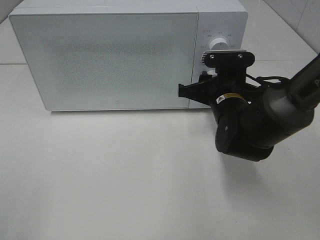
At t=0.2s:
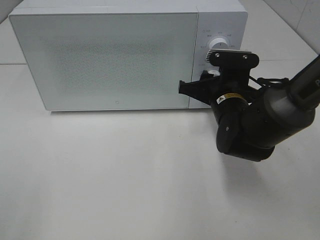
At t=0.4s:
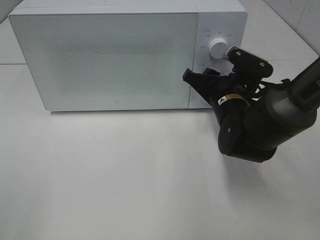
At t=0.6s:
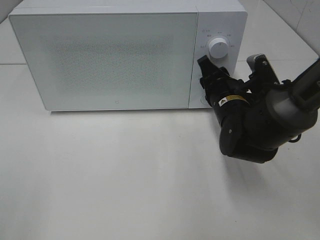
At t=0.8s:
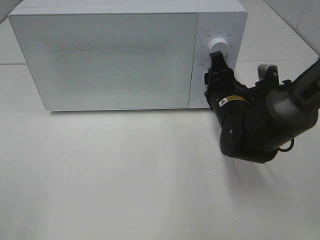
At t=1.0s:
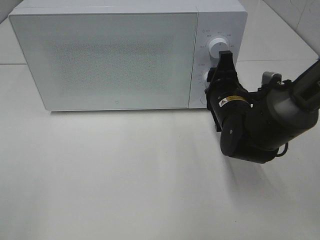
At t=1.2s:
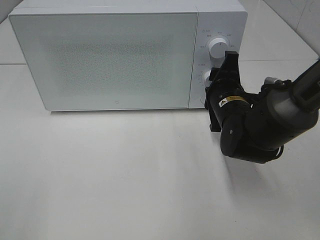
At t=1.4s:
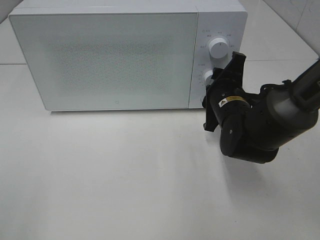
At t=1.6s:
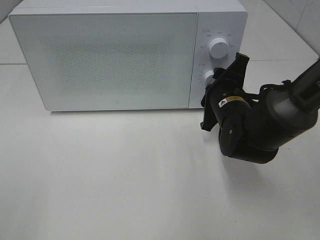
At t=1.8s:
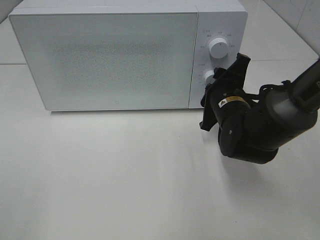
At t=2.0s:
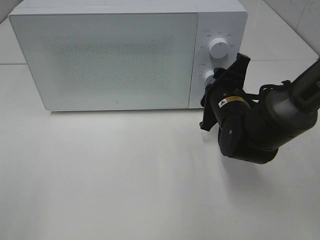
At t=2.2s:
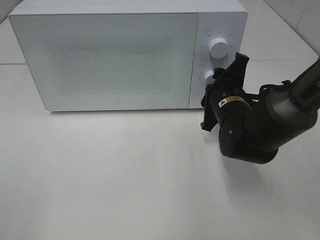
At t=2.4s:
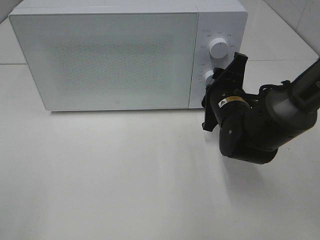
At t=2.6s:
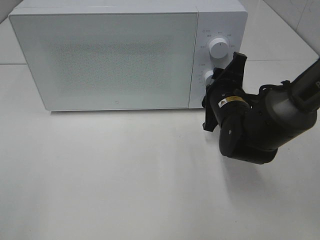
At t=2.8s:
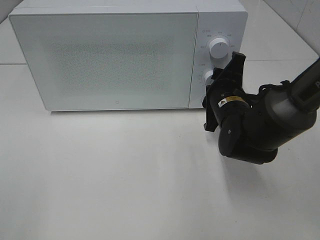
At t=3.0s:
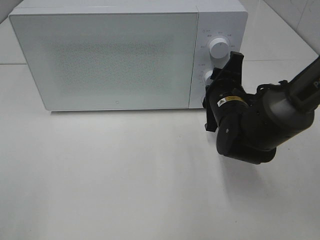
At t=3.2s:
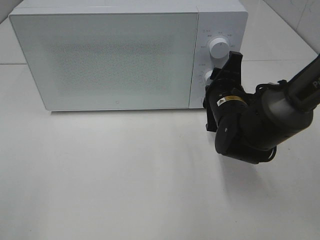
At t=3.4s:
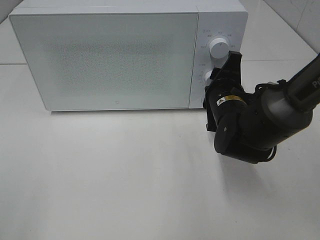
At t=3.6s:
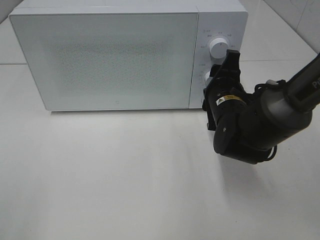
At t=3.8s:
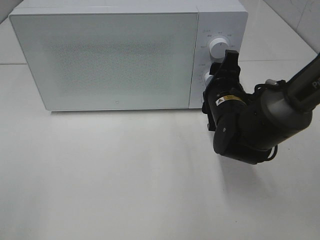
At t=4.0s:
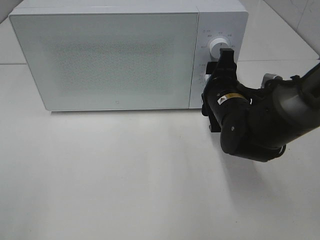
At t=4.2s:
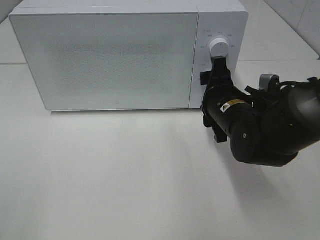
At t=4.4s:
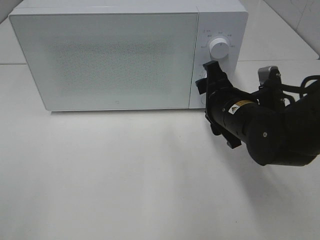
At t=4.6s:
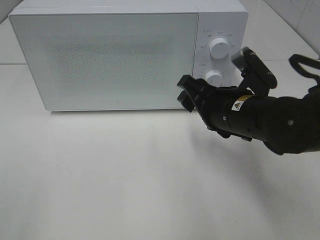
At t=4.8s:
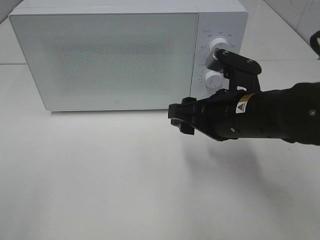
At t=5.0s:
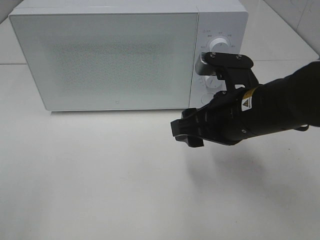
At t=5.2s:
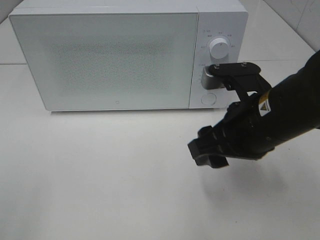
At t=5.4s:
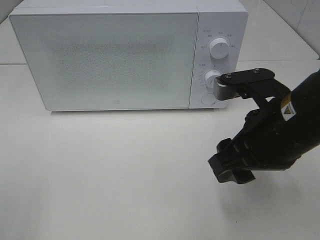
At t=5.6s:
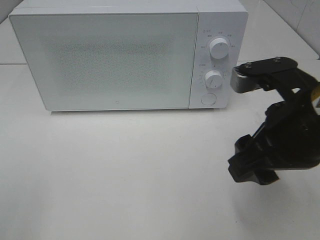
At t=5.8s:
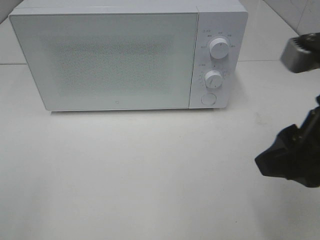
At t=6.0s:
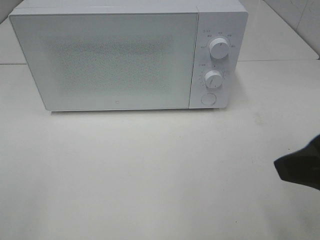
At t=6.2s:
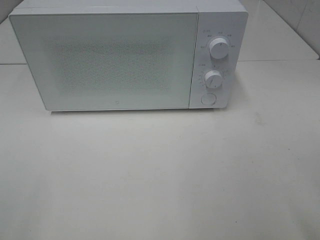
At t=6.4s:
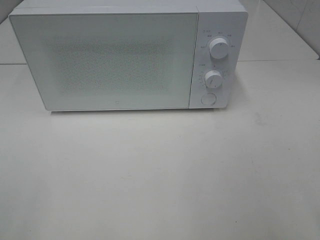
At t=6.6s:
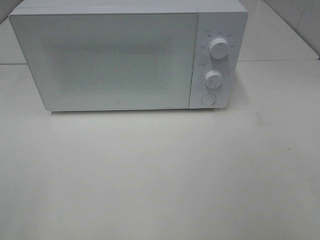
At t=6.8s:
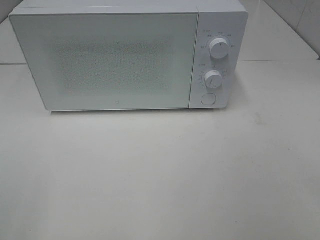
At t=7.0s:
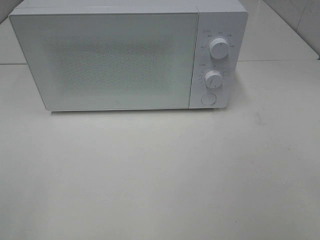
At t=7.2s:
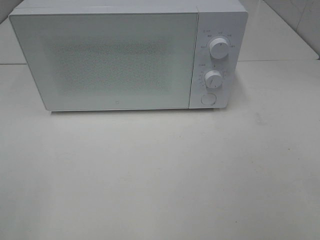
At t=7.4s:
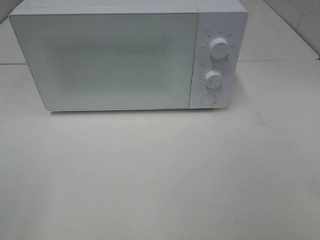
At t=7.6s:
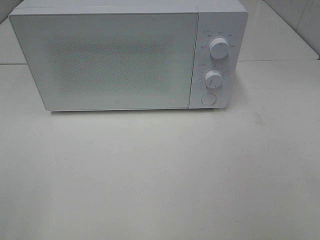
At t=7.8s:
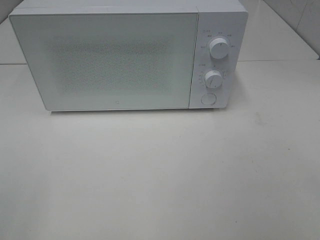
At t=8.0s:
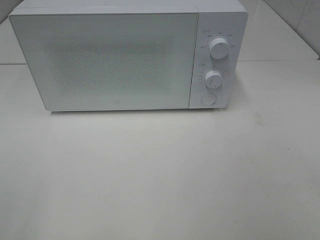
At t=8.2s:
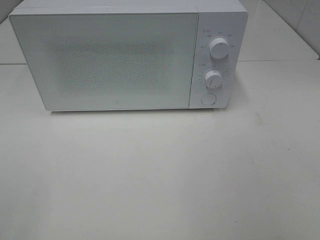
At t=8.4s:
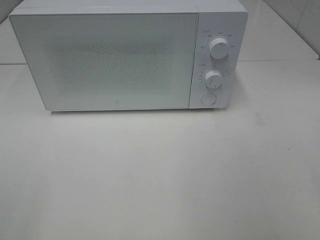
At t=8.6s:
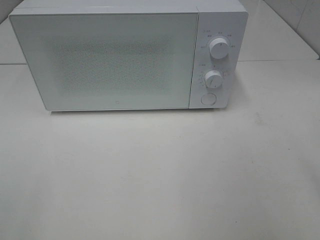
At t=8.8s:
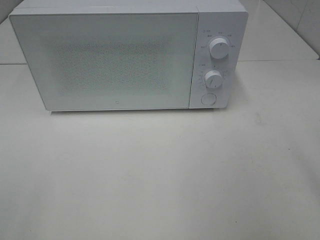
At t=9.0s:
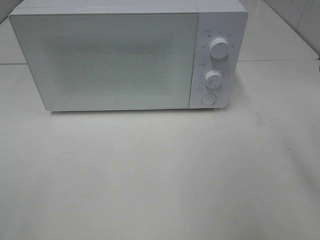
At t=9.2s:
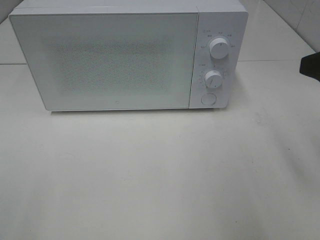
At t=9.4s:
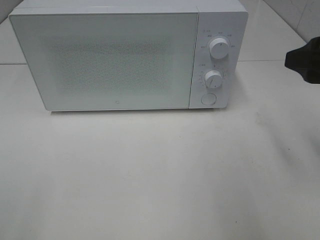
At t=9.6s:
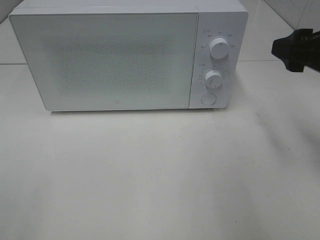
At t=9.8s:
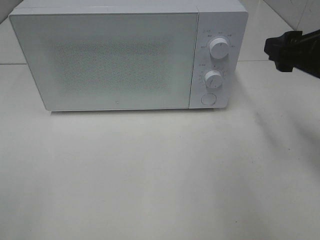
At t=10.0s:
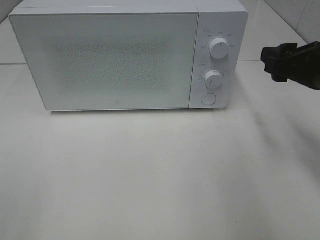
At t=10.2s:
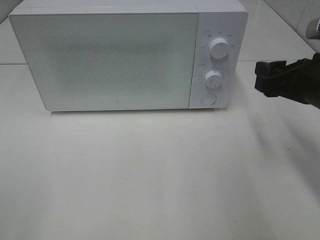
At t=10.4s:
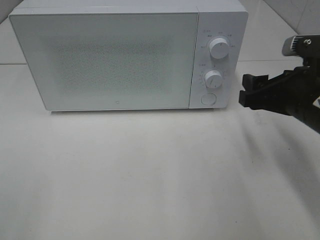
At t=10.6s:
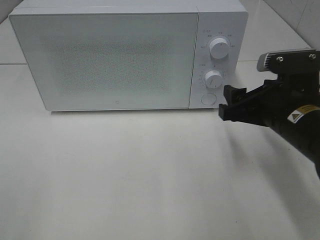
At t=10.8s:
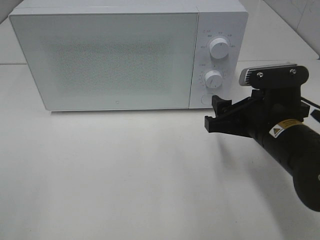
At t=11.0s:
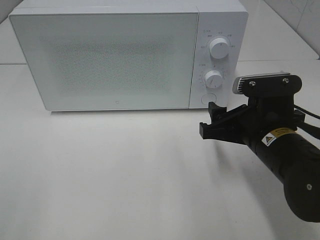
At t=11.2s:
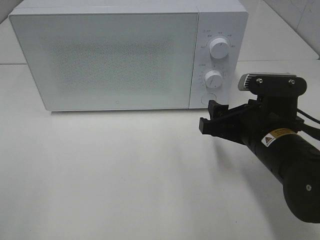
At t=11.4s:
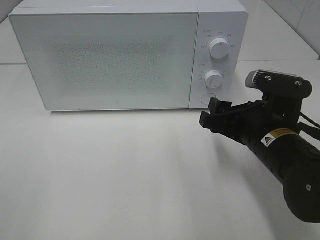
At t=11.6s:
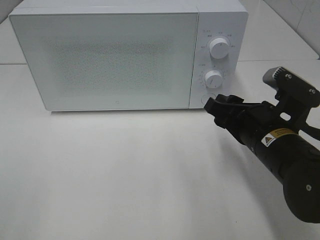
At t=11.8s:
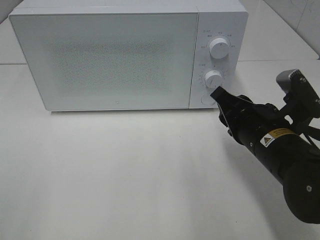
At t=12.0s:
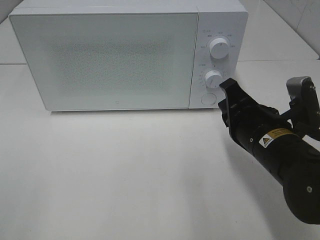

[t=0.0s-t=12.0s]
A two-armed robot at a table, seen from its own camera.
Task of the whole recording: Heat the burger.
Step, t=0.0s to t=3.6s: Right hand: twist timer button.
t=1.6s to t=3.0s: The grippers make only small movements.
t=4.4s to t=6.0s: The right gripper moves backward, upward and to the right, about 25 cm.
t=6.0s to t=7.6s: The right gripper heads backward and to the right, covering approximately 15 cm.
t=9.0s to t=10.4s: The right gripper travels downward and forward by approximately 15 cm.
t=10.4s to t=12.0s: The right gripper shifts approximately 5 cm to the left, and closes its fingers.

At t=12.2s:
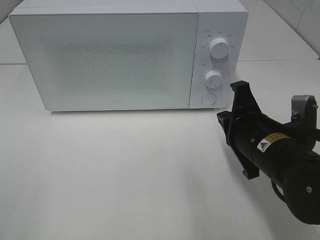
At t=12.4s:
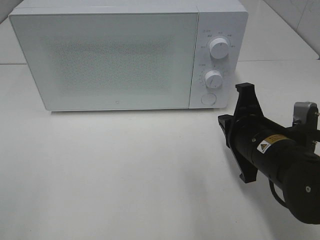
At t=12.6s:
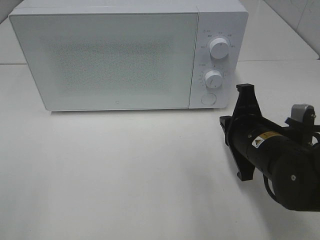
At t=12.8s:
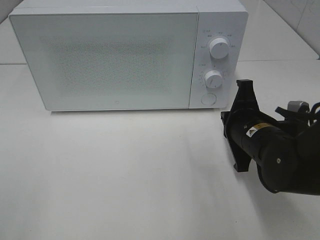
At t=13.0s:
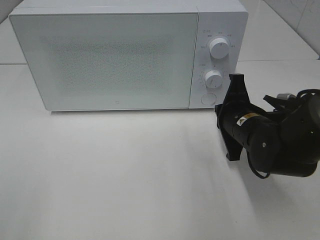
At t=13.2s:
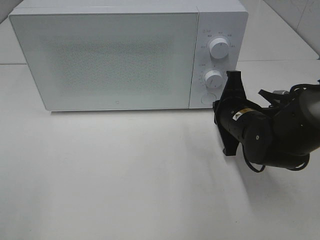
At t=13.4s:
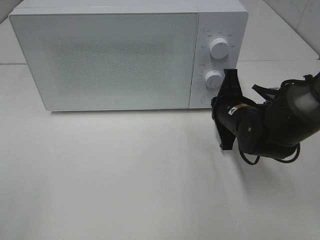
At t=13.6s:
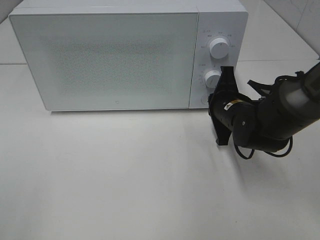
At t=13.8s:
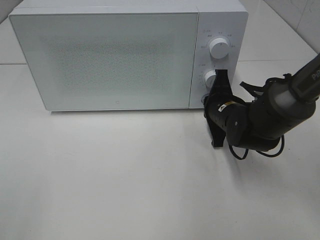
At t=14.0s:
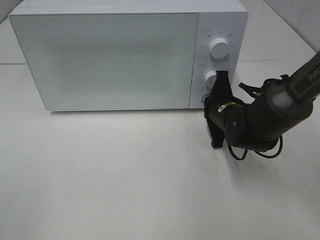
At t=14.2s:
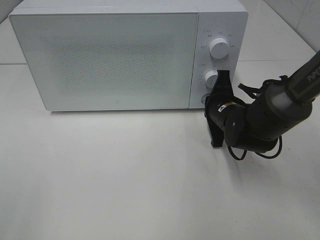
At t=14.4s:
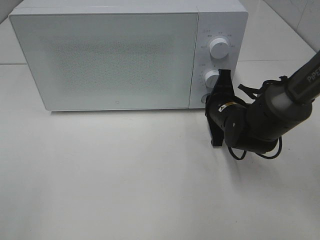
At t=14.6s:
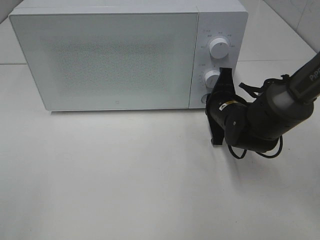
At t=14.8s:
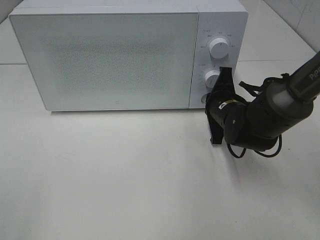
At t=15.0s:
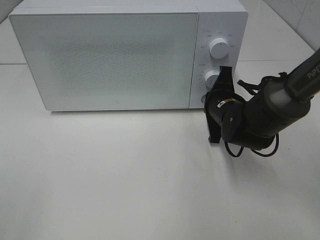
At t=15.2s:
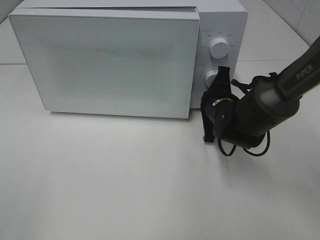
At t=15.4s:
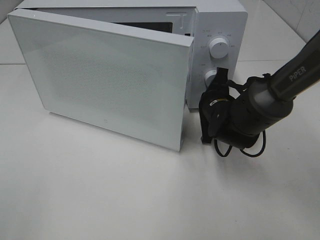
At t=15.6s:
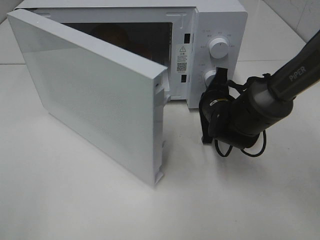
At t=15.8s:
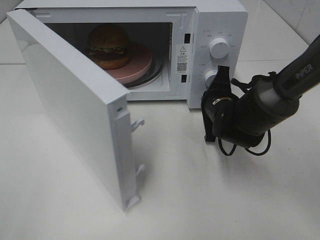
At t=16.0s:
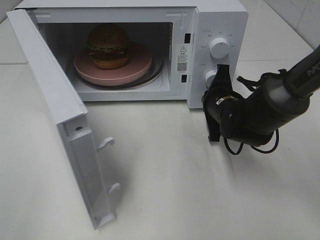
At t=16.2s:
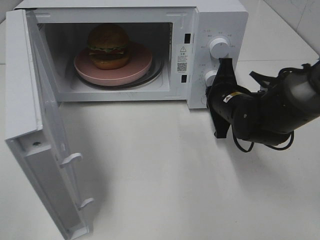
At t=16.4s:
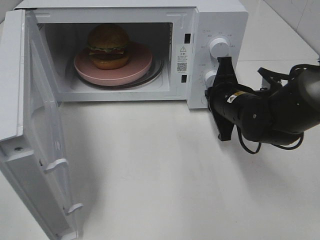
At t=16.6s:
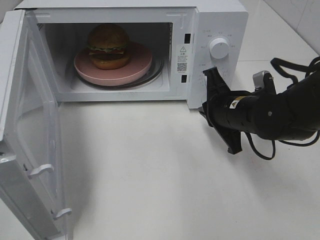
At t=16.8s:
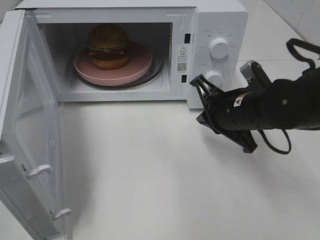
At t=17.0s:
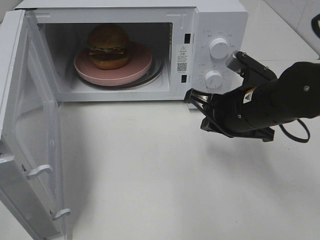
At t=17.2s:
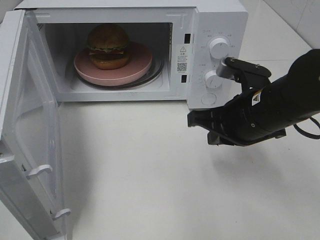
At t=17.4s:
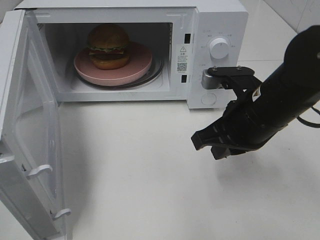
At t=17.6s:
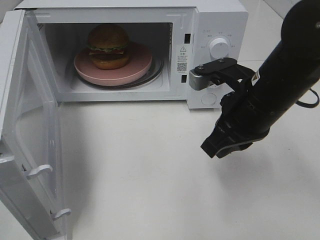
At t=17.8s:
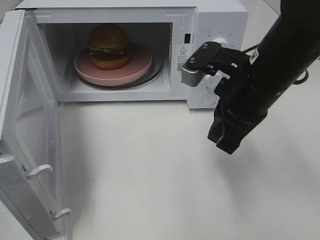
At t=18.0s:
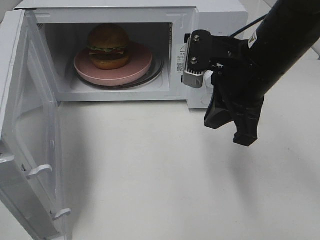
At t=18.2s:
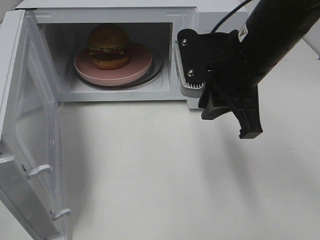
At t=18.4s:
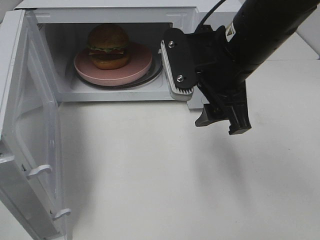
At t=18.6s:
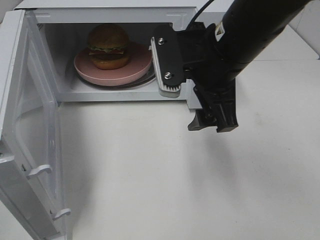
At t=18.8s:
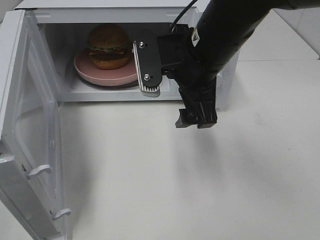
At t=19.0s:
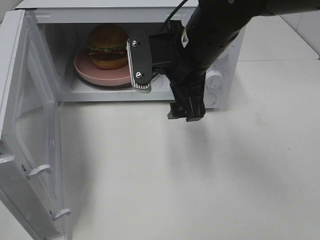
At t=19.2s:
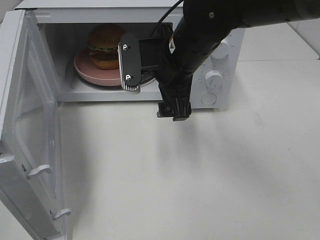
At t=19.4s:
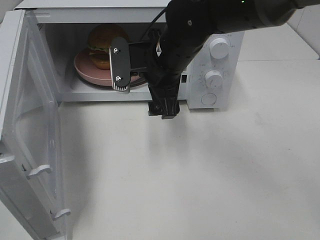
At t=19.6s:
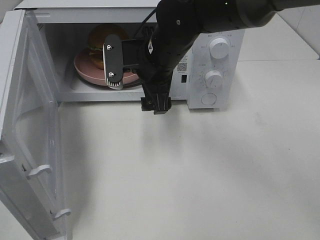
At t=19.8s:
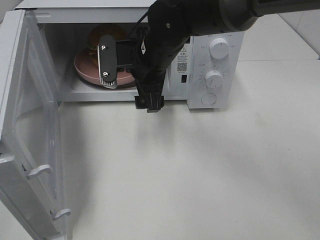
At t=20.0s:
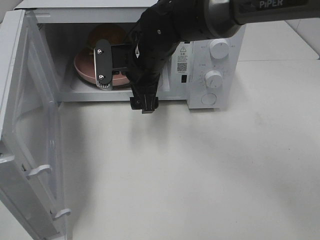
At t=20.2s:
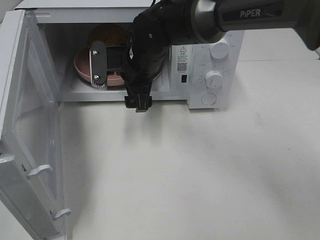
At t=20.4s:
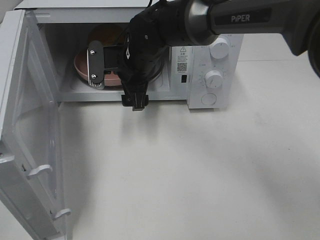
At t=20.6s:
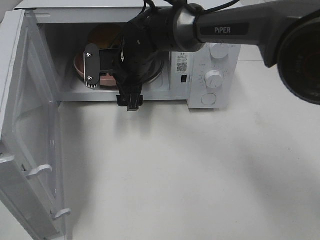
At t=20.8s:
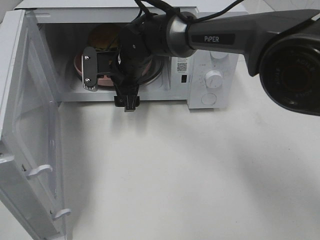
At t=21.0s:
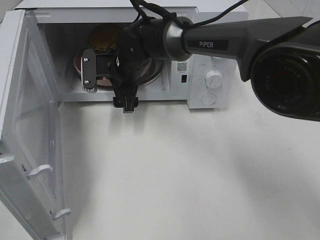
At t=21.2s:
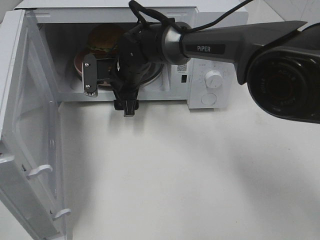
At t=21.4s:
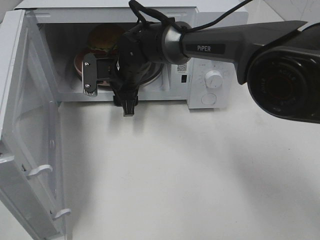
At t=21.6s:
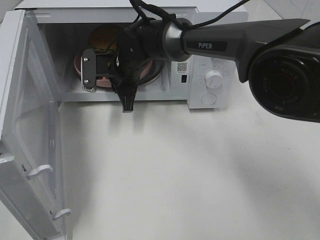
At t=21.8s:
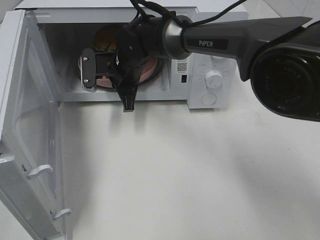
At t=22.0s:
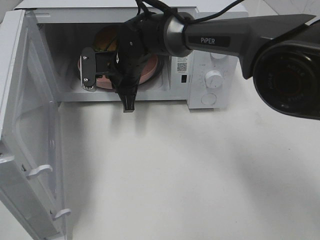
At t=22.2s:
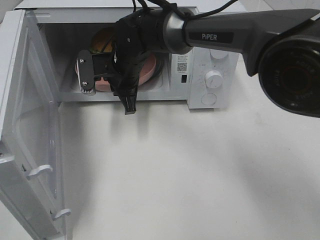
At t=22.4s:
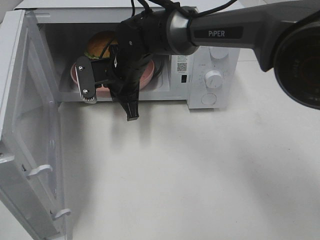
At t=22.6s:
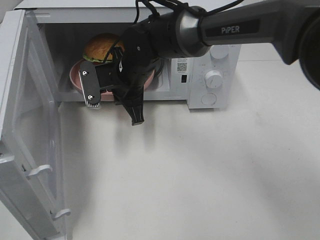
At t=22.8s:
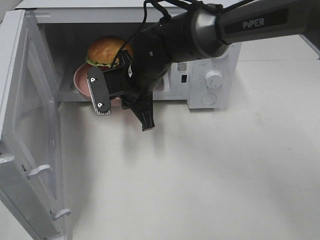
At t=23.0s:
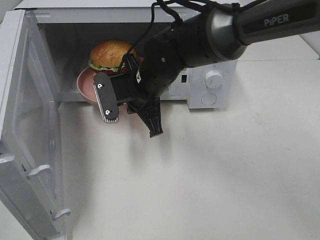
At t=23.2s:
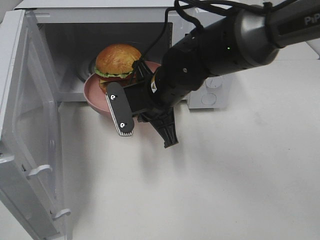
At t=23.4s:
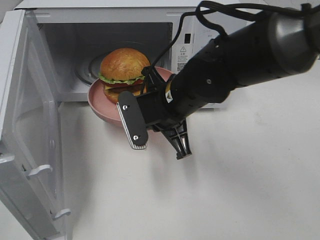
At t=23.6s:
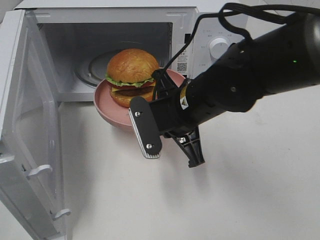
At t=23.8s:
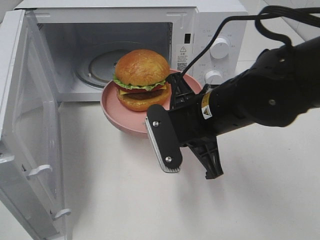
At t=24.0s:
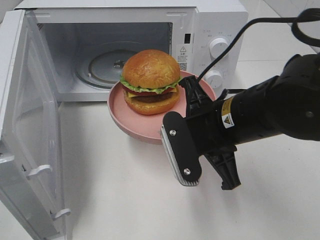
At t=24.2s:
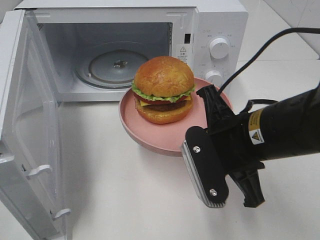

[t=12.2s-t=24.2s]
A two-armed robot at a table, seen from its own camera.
Task of the whole recording: Heat the burger.
Step, t=12.2s to t=16.2s: Right hand: press the switch.
Step, t=16.4s to t=21.6s: Right hand: grab the plate with the hamburger.
t=12.2s to t=13.8s: The right gripper shifts roughly 15 cm forward and downward.
t=13.8s to t=15.2s: The grippers stay close to where they were, moving slightly.
t=15.2s to t=16.6s: The right gripper travels backward by approximately 5 cm.
t=16.6s to t=18.2s: The right gripper travels upward by roughly 15 cm.
t=18.2s to t=19.8s: The right gripper is displaced to the left, forward and downward by some 15 cm, and opens.
t=19.8s to t=21.2s: The right gripper travels downward and forward by approximately 10 cm.
t=21.2s to t=22.6s: The right gripper shifts by roughly 5 cm, and closes its fingers.
t=22.6s to t=24.2s: The right gripper is displaced backward and to the right by about 25 cm.
